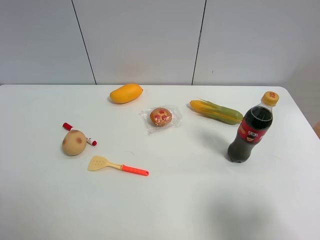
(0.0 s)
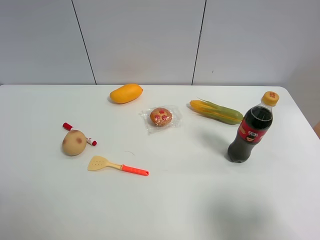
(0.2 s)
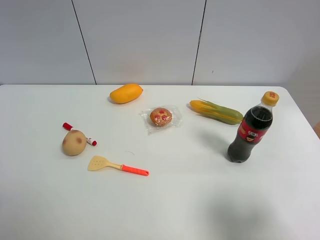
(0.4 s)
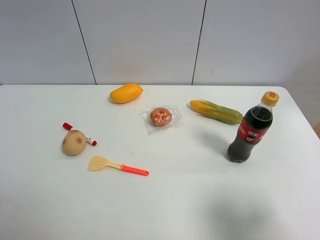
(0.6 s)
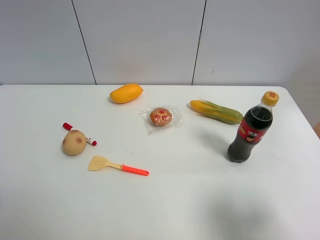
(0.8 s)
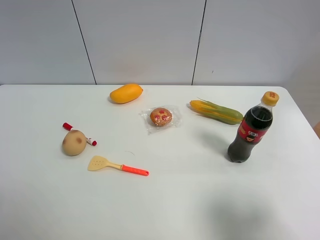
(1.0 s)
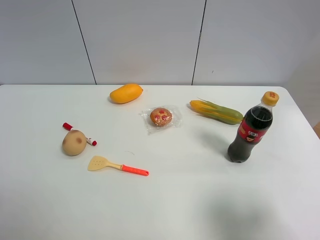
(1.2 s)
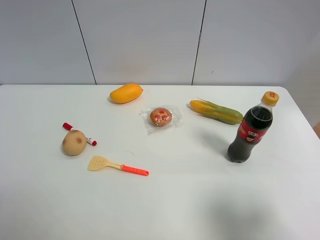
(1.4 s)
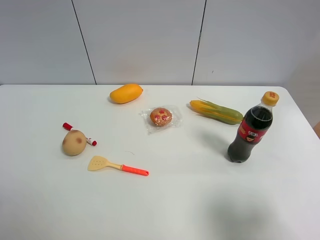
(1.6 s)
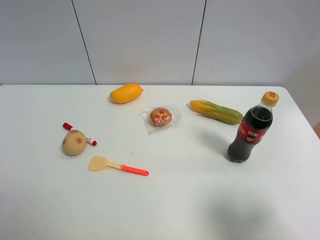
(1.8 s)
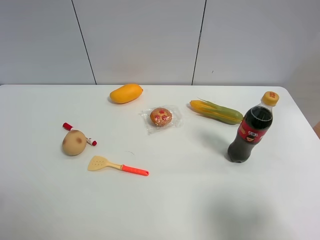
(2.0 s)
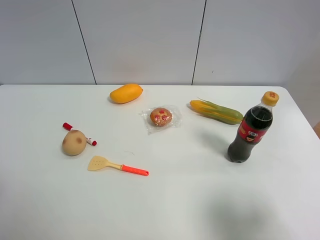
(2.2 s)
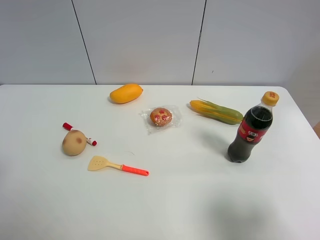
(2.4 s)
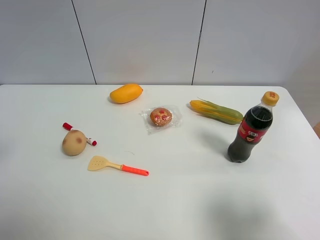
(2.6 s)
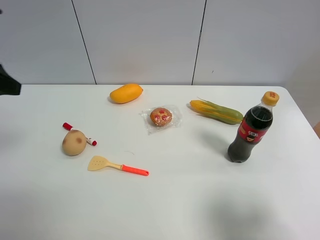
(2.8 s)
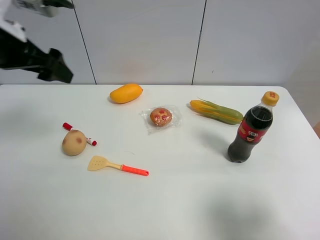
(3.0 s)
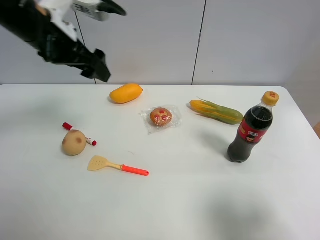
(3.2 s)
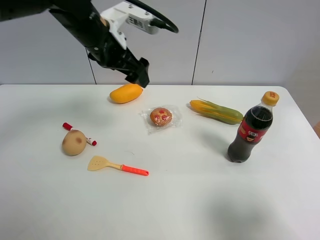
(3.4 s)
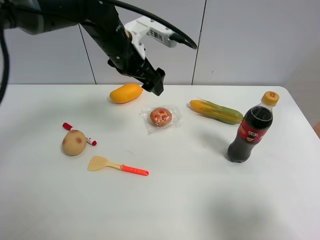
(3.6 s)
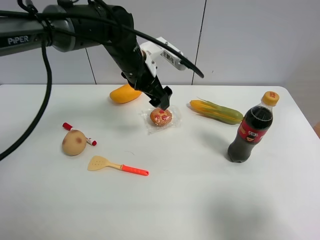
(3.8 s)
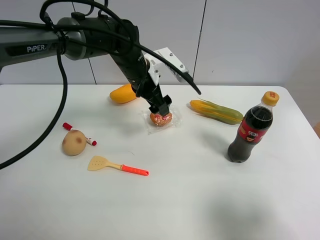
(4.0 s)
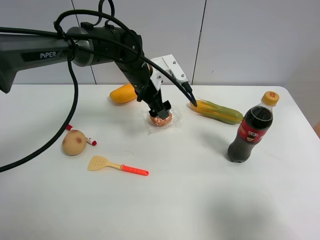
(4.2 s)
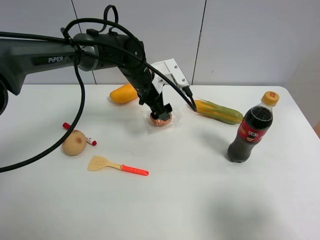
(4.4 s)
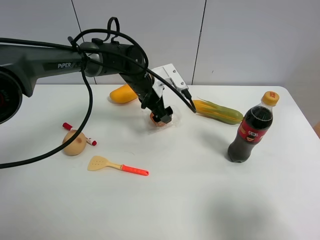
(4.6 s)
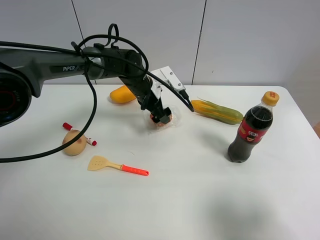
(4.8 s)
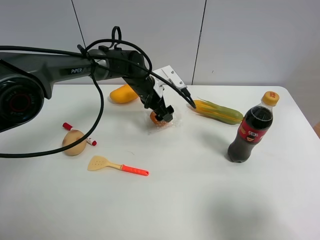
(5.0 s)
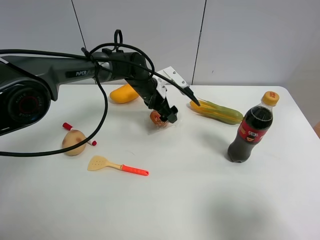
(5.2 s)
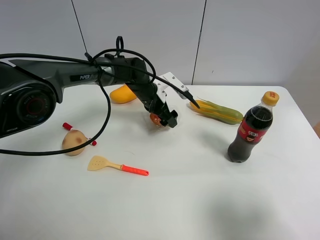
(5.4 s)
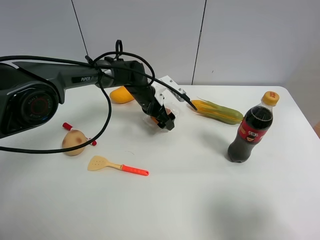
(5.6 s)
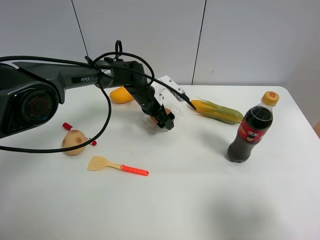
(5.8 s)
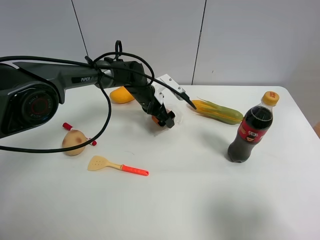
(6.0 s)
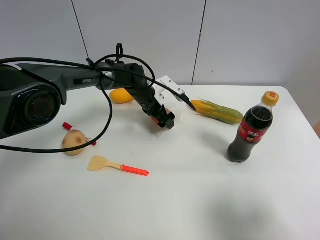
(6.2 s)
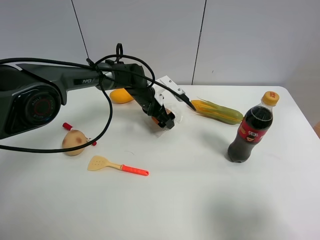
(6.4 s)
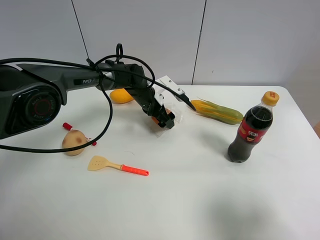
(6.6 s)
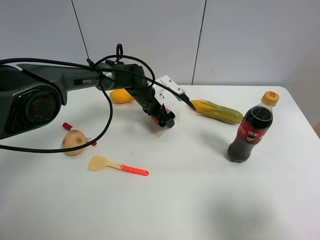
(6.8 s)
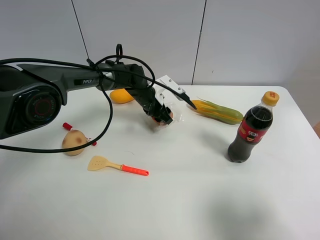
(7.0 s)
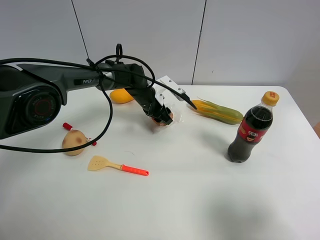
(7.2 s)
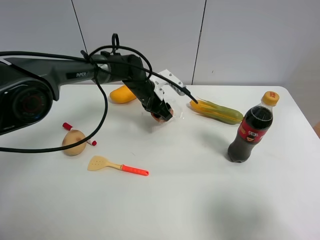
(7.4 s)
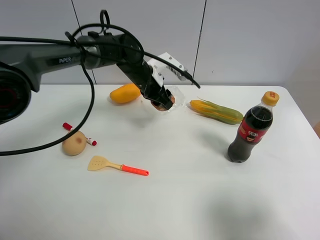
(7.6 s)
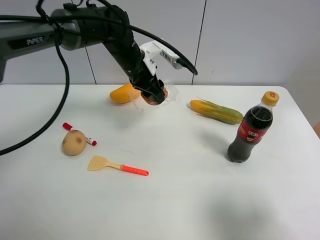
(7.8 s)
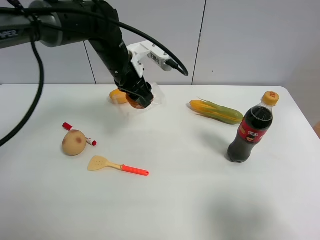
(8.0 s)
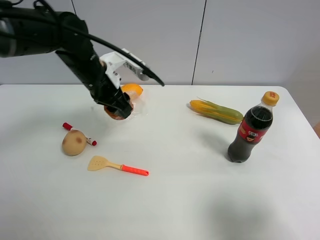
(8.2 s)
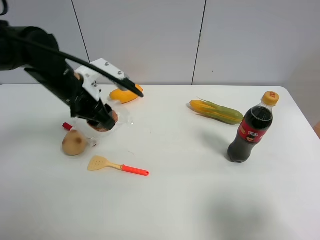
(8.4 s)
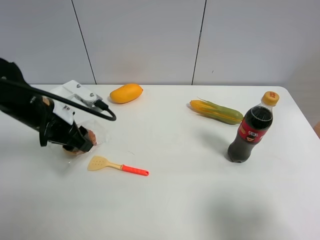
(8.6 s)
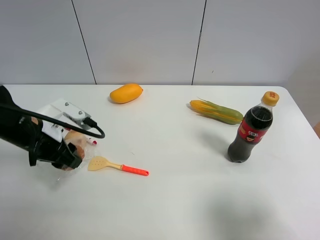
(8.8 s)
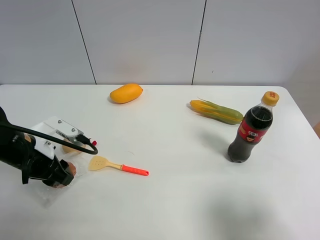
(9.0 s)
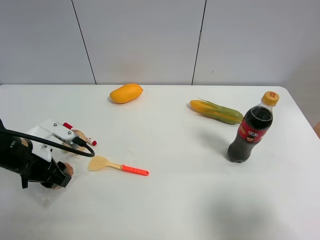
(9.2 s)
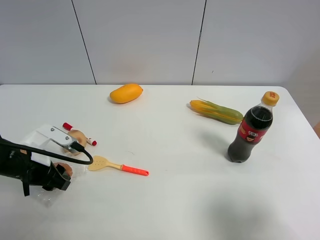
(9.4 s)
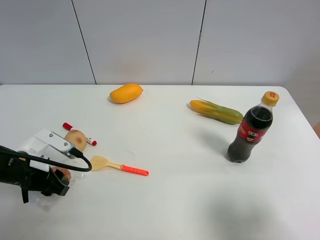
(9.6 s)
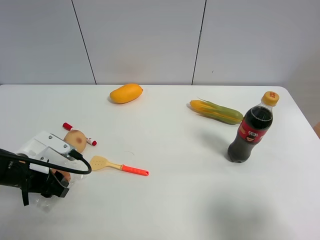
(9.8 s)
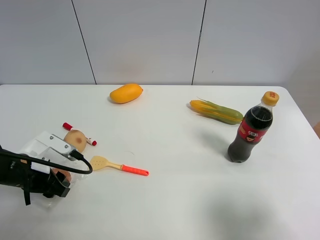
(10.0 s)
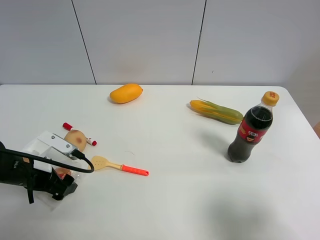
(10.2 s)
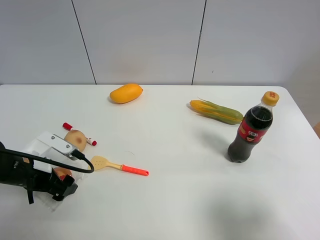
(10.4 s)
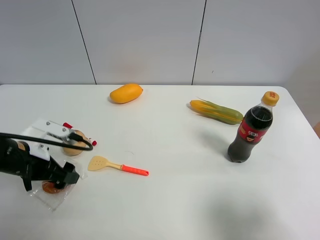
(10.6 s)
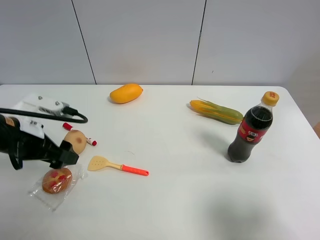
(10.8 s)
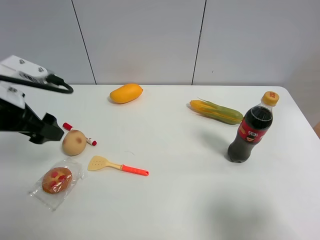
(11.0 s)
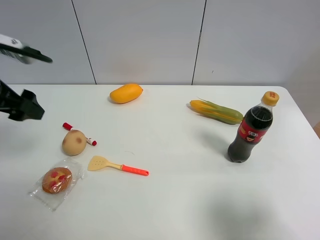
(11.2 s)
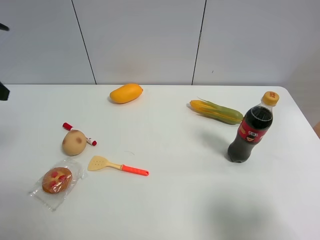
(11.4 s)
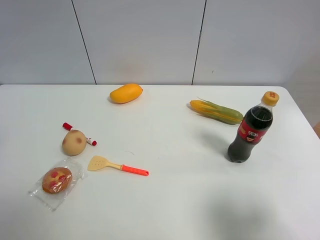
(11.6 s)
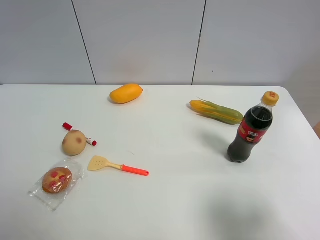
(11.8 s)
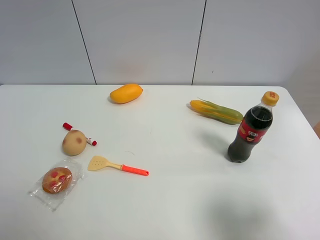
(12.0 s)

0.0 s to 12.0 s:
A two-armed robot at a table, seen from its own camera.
Task of the whole recording: the gripper move the object.
Step, 0.0 to 7.0 s: Grasp the egg tart with the left gripper.
Step, 7.2 to 10.4 s: Place the egg tart on the table with the left gripper.
1.6 to 3.0 s: The left gripper shifts some 25 cm forward.
3.0 to 4.4 s: The left gripper is displaced to the right, downward and forward by about 35 cm.
4.4 to 6.0 s: The left gripper is displaced downward by some 10 cm.
6.0 to 7.6 s: The left gripper closes.
7.6 to 9.0 s: The left gripper shifts about 30 cm backward and to the left.
9.0 to 10.4 s: The left gripper travels downward by roughly 5 cm, and opens up.
10.4 to 12.0 s: The left gripper is displaced upward by about 30 cm.

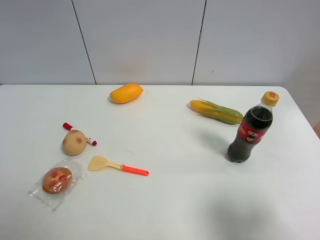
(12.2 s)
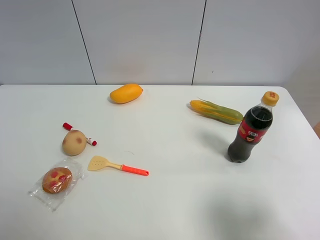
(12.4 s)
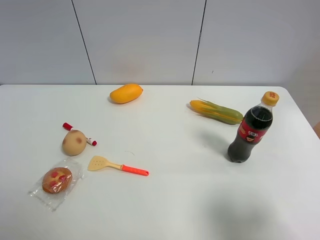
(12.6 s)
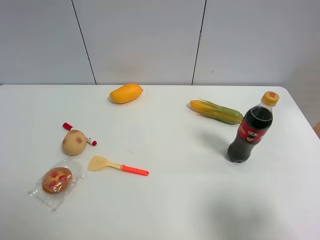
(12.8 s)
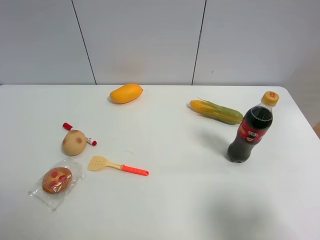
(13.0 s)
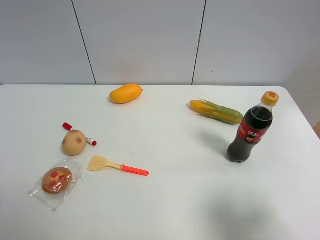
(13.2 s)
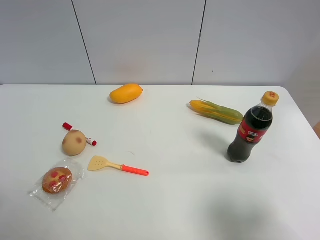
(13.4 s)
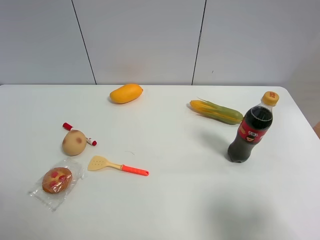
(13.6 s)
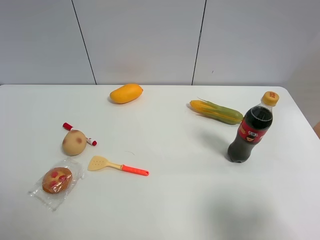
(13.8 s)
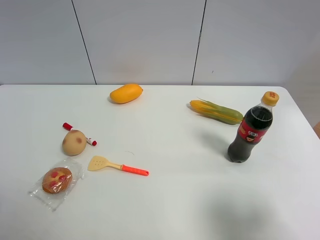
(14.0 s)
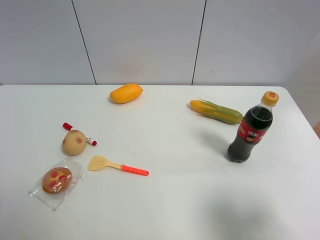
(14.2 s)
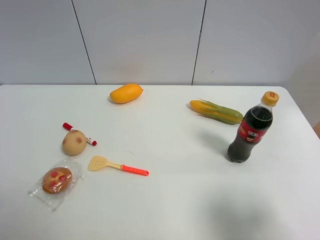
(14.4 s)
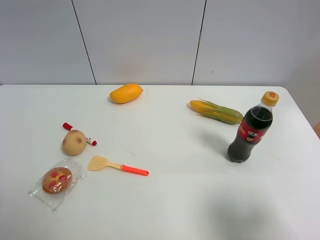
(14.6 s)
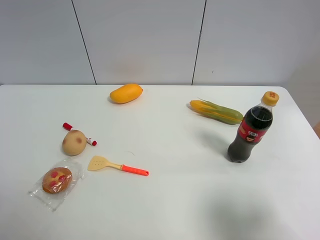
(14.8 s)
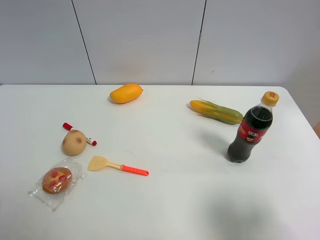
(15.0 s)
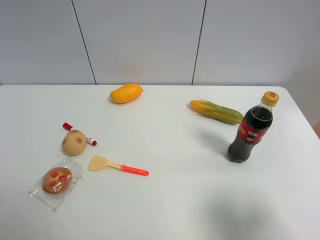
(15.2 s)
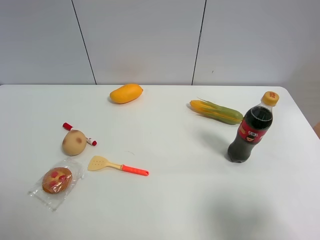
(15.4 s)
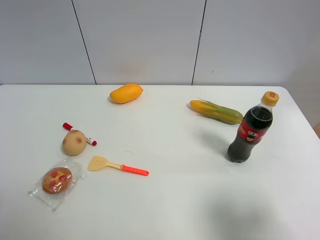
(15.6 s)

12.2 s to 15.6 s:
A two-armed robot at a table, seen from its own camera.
Task of the whole recording: the gripper move the object.
13.8 to 15.6 s: Neither gripper changes place.

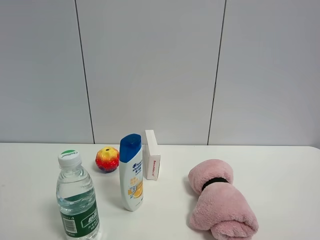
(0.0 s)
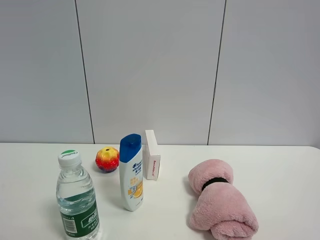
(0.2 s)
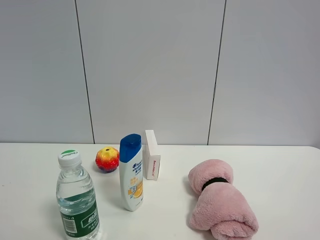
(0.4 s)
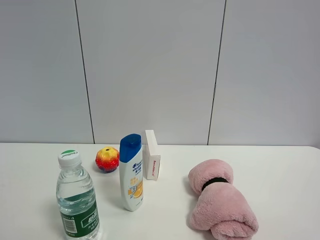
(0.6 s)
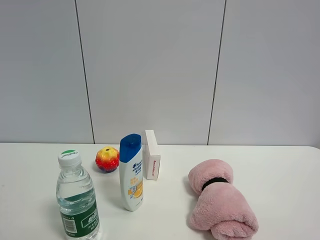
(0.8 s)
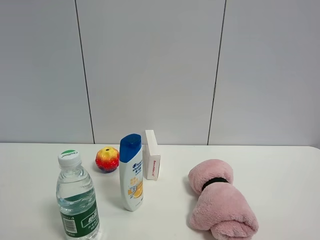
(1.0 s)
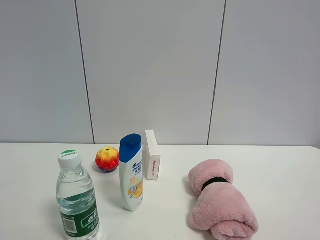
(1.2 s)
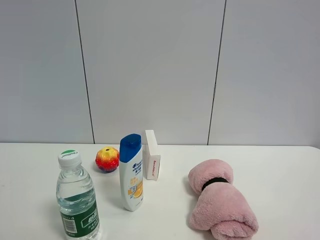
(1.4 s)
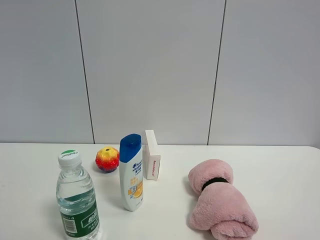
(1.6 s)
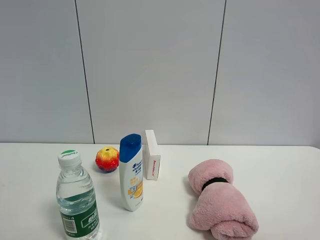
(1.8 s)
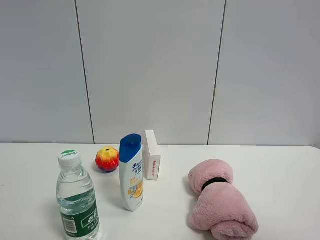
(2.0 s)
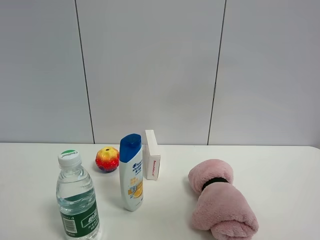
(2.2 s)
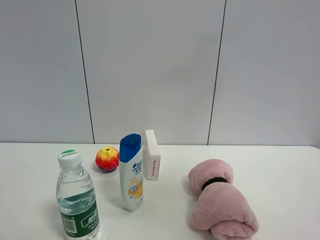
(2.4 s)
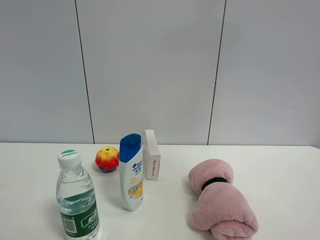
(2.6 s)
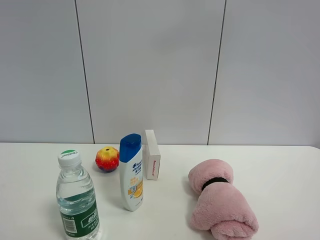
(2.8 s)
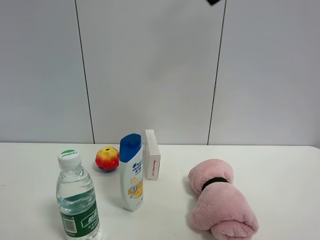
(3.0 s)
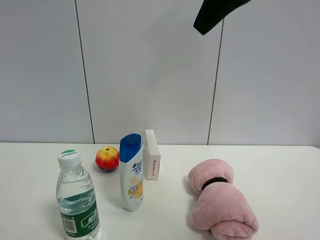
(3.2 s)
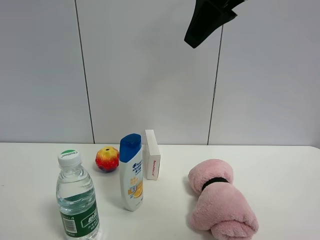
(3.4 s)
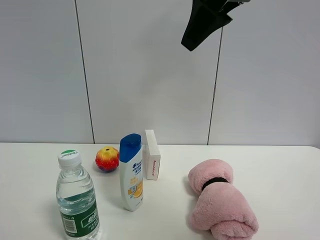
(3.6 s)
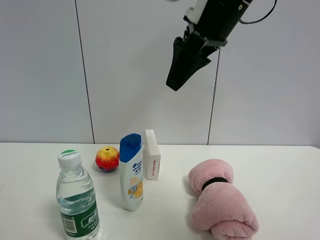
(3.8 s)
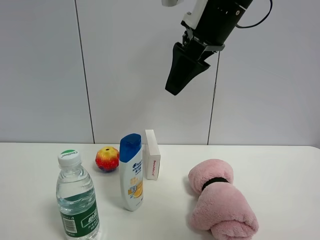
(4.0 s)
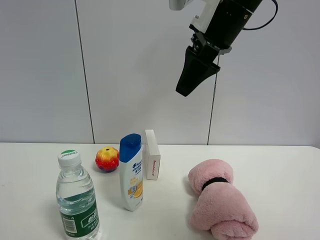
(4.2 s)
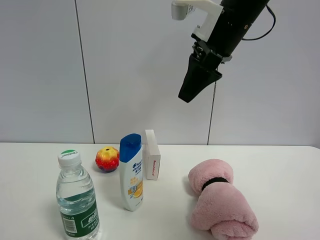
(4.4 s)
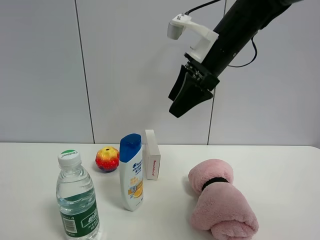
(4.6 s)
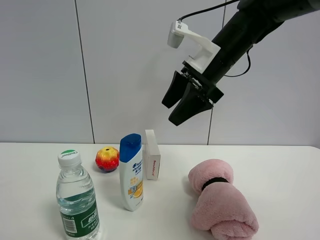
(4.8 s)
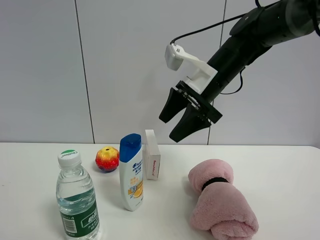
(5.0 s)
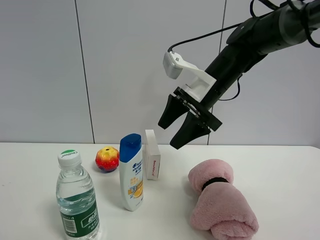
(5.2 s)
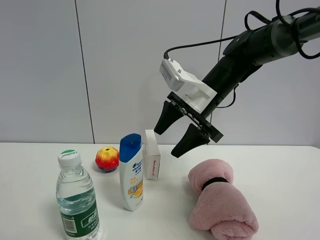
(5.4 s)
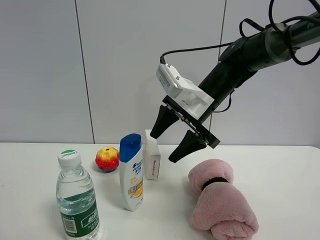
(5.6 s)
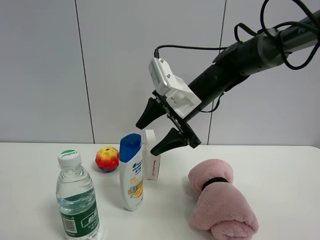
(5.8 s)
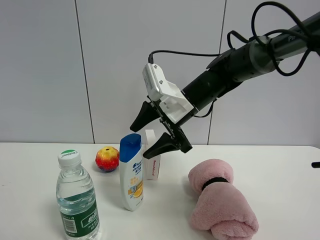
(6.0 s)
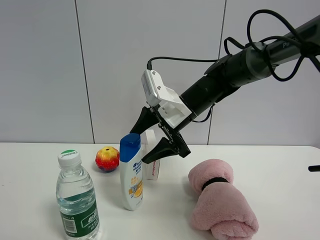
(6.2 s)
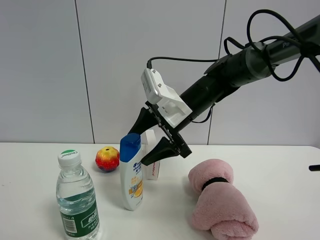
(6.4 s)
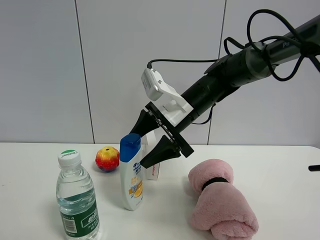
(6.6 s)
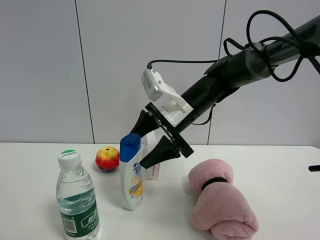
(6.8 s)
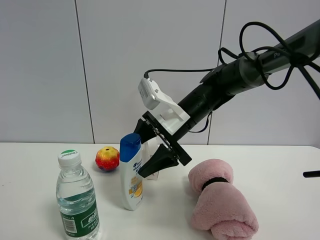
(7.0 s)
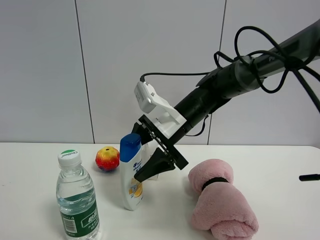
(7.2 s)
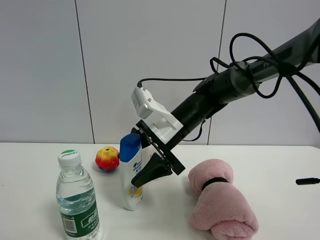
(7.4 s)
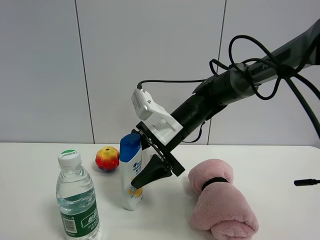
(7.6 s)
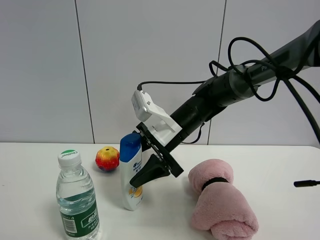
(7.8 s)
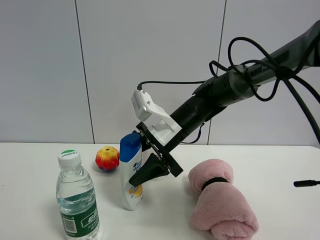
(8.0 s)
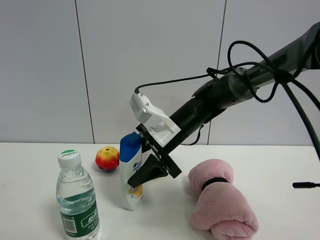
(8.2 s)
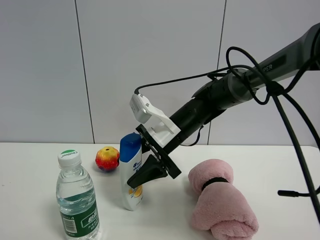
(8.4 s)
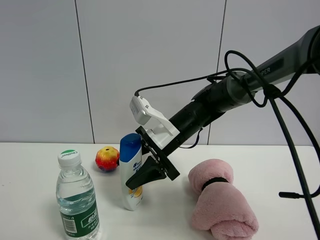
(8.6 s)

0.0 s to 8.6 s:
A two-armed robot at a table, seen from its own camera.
Task of the whole recording: the gripper move the object.
0.0 to 1.4 s: The two grippers keep their place.
1.4 to 2.8 s: The right gripper travels forward, upward and to the left by roughly 35 cm.
2.8 to 4.4 s: The right gripper shifts some 20 cm downward, forward and to the left.
4.4 to 5.8 s: The right gripper shifts some 15 cm downward and forward.
5.8 to 7.2 s: The right gripper moves some 5 cm.
7.2 to 8.6 s: The grippers make only small movements.
